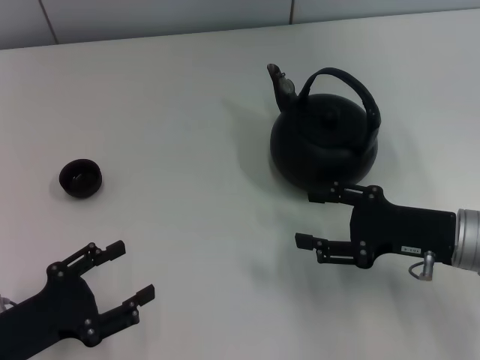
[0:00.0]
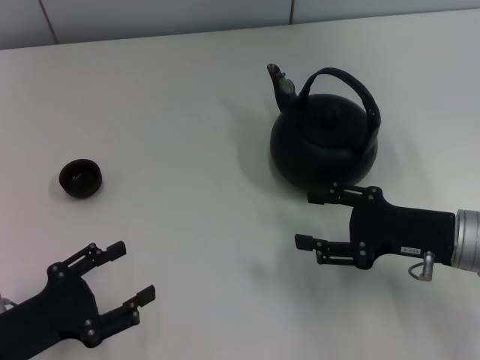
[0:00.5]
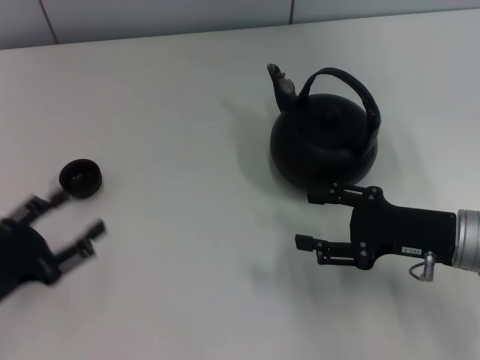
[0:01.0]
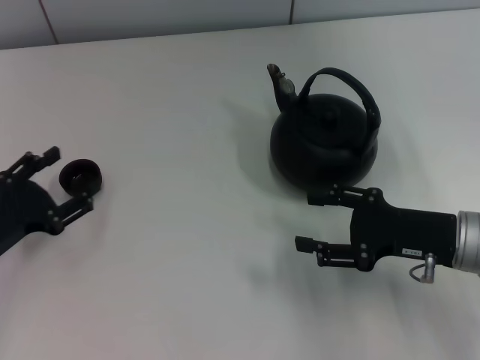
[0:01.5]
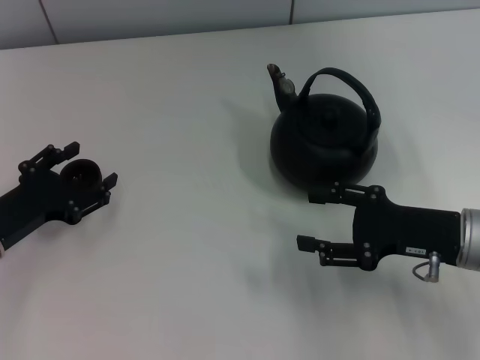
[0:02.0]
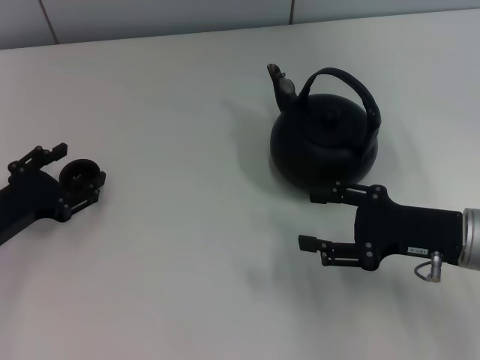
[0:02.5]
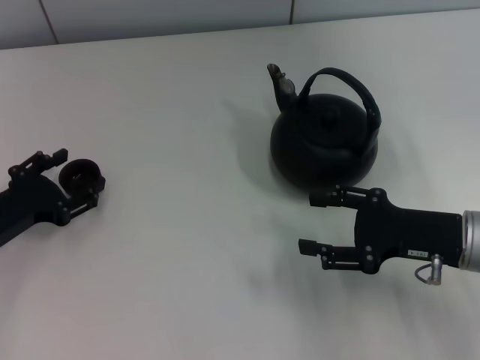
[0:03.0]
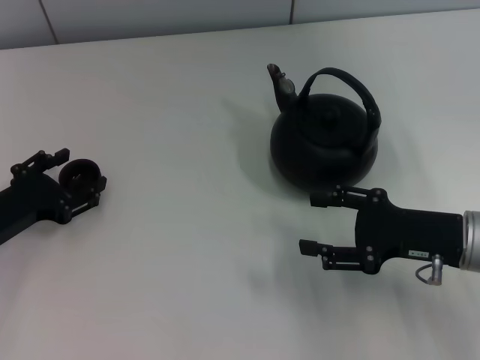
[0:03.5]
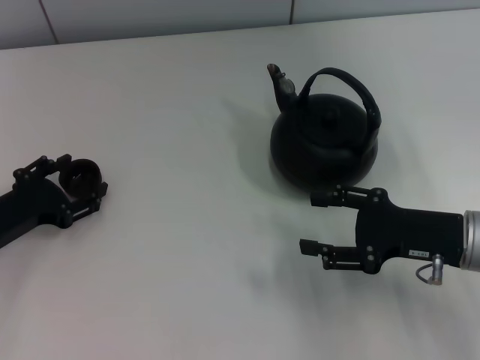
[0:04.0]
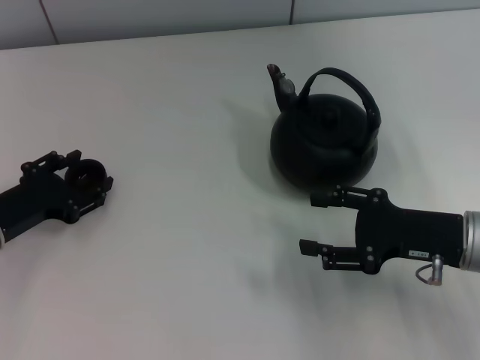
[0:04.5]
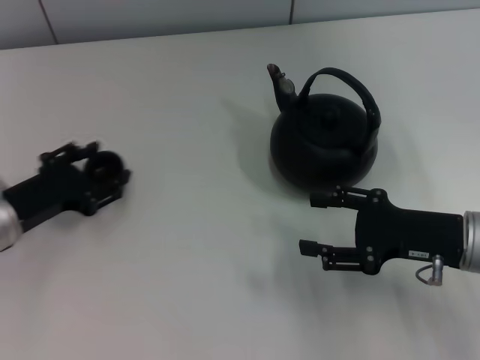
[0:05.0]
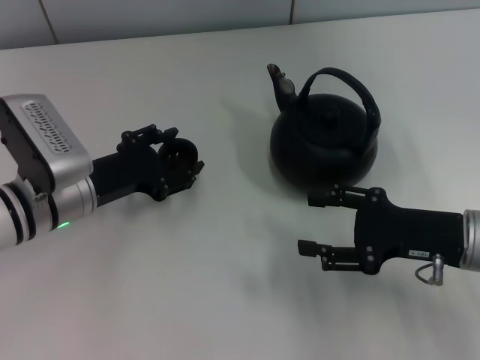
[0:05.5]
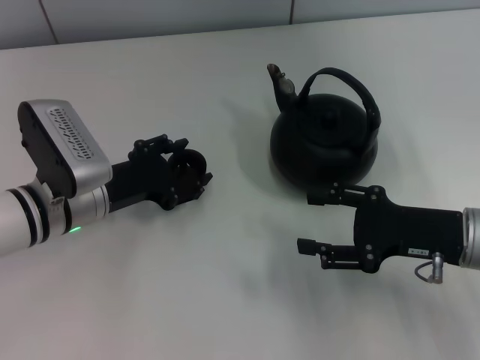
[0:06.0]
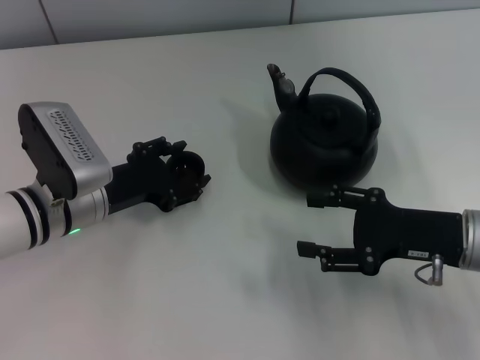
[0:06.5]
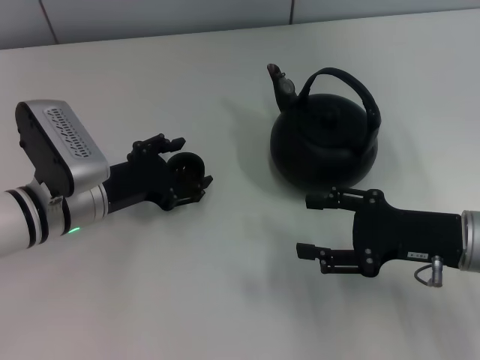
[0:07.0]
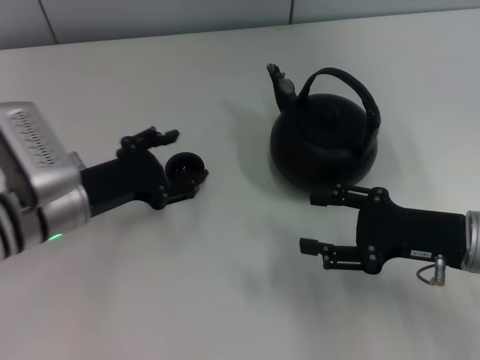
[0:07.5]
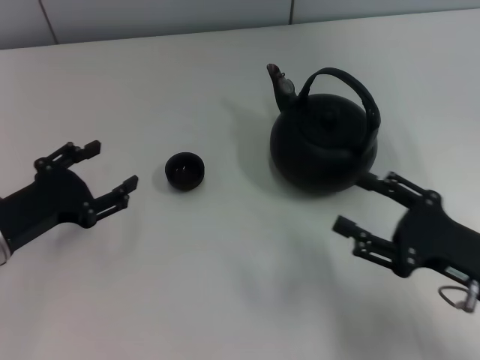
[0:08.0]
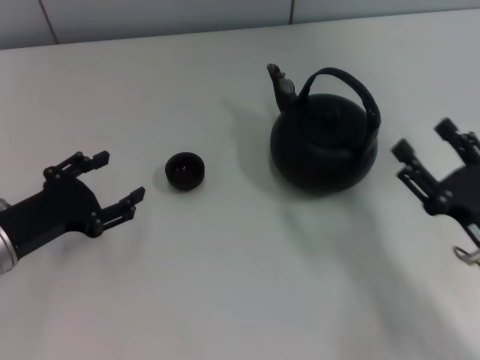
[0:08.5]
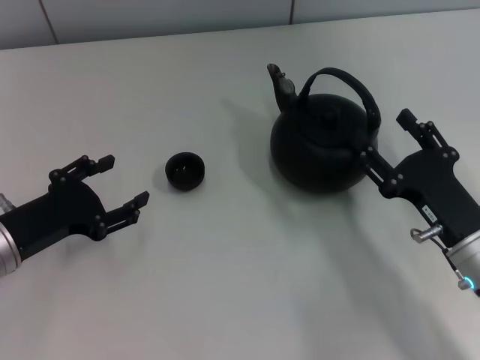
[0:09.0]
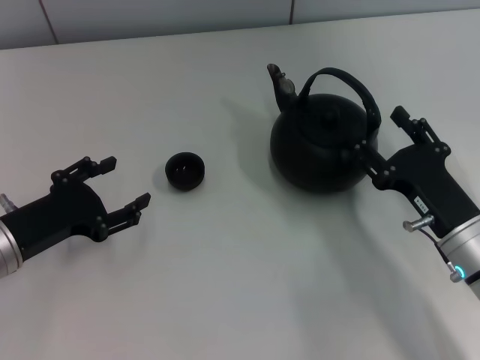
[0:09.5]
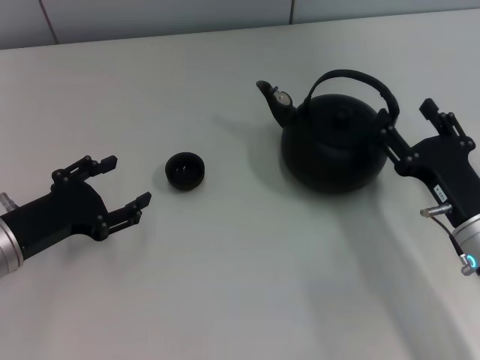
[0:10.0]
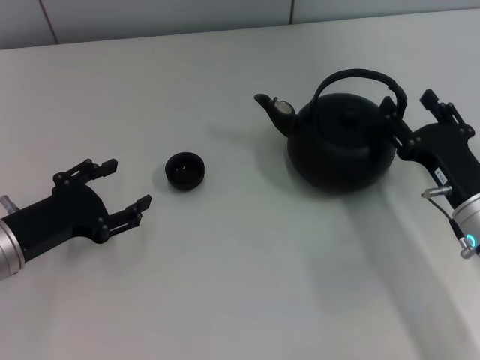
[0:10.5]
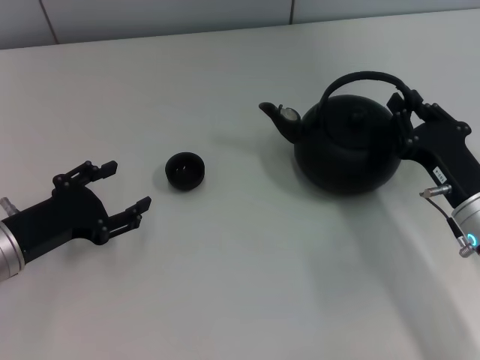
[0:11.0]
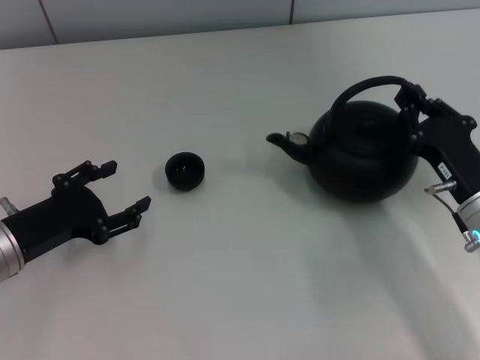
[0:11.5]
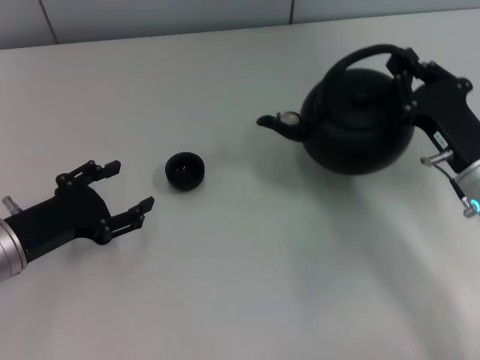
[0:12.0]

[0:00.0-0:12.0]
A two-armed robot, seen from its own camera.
Task of the whole recording: Grasp the handle of the teapot with one hand and pour tea into the teacup.
Step, 0:00.0 to 0:05.5: Pick up the teacup with the left gripper.
Step, 0:06.0 to 0:09.0: Place the teacup in the center of view with the left gripper.
0:00.0 to 0:02.0: The left gripper heads forward, covering some 10 cm.
0:02.0 to 0:04.0: There are only small adjustments of the grippers.
0:04.0 to 0:06.0: The left gripper is displaced to the right by about 10 cm.
0:06.0 to 0:08.0: The left gripper moves to the left and backward, about 10 cm, while the right gripper heads backward, covering some 5 cm.
0:08.0 to 0:10.0: The right gripper ends up some 5 cm from where it was.
0:10.0 to 0:12.0: The right gripper moves about 5 cm, and closes up.

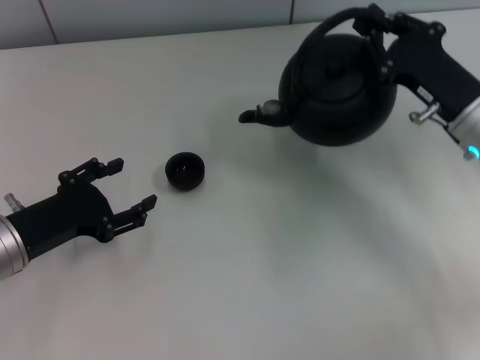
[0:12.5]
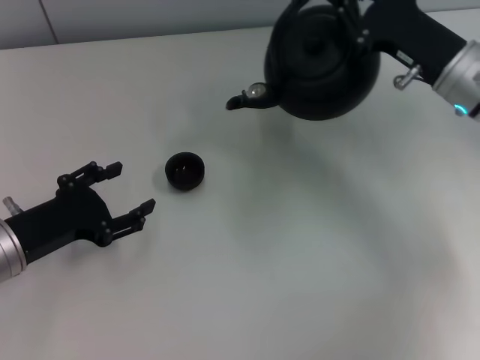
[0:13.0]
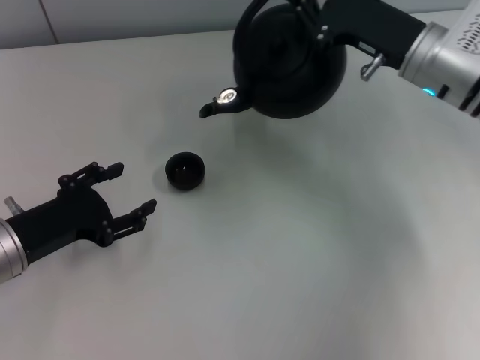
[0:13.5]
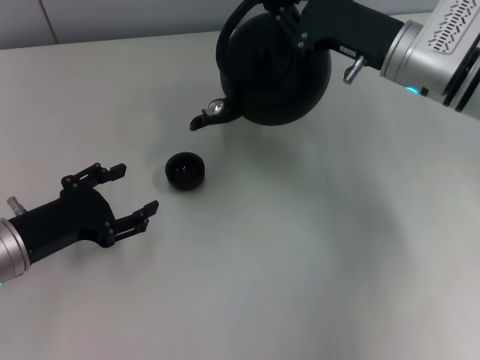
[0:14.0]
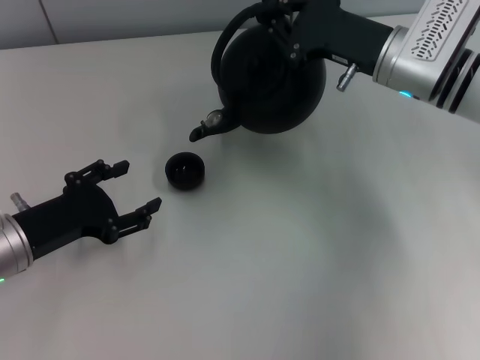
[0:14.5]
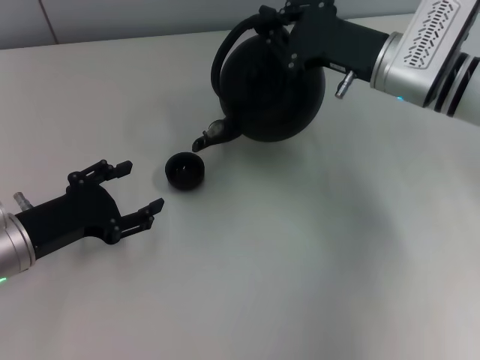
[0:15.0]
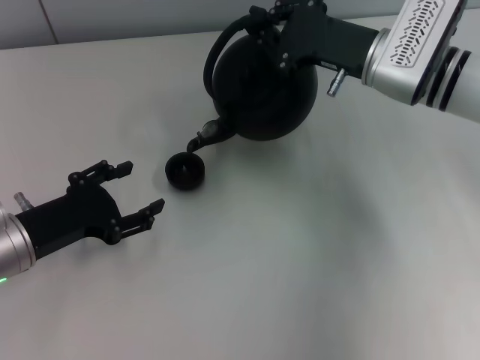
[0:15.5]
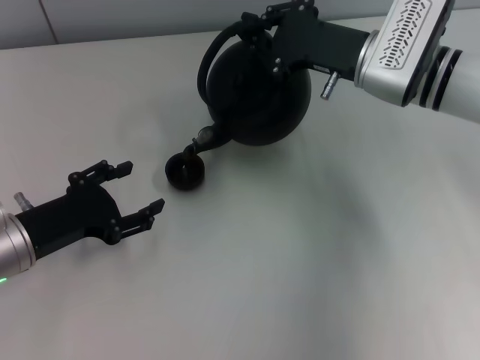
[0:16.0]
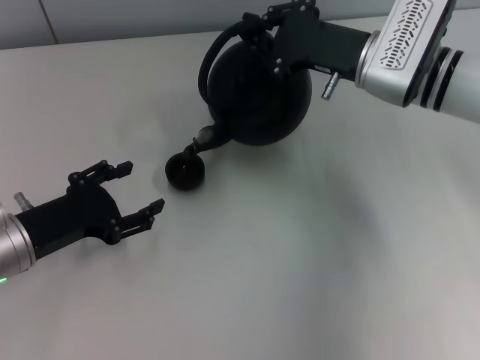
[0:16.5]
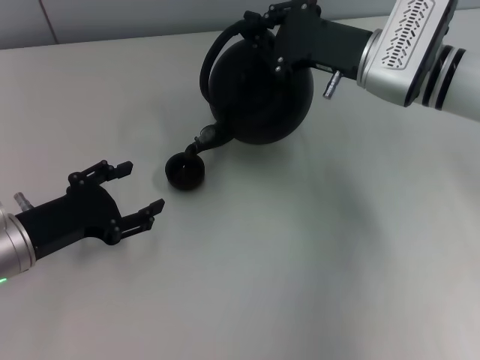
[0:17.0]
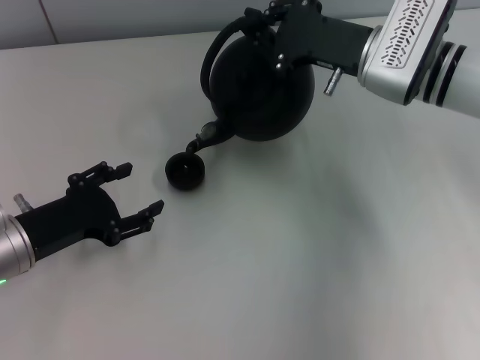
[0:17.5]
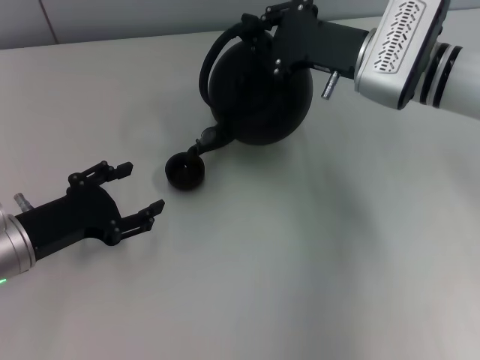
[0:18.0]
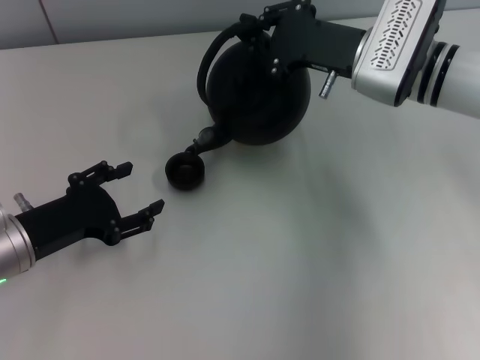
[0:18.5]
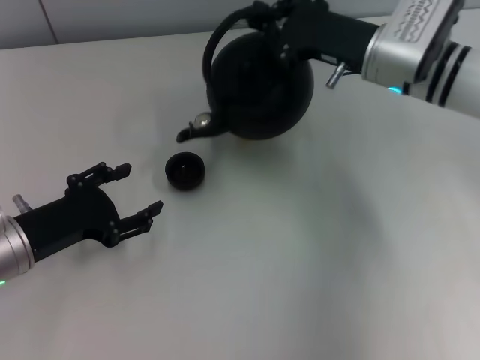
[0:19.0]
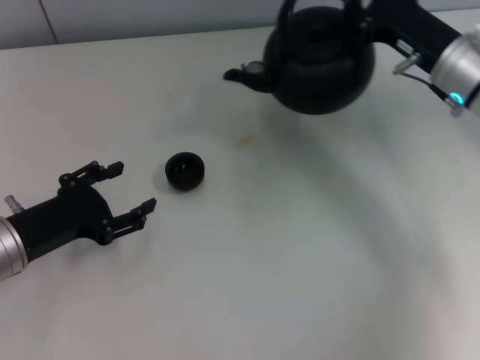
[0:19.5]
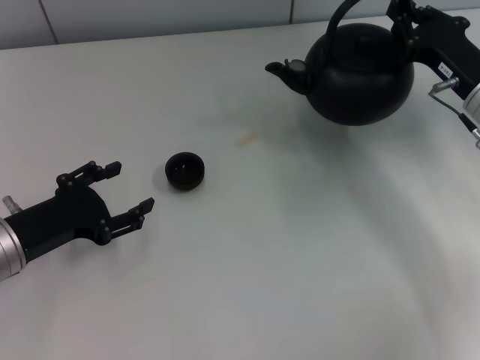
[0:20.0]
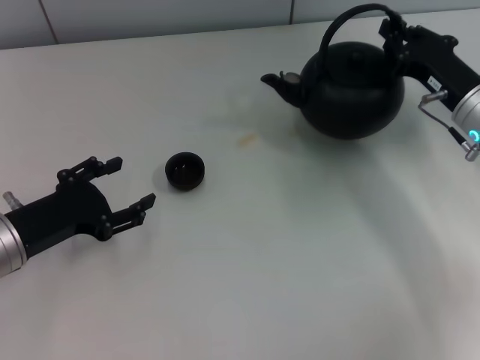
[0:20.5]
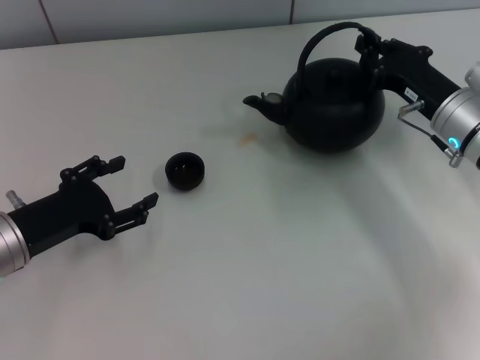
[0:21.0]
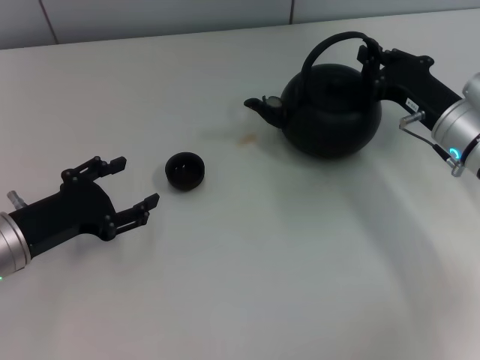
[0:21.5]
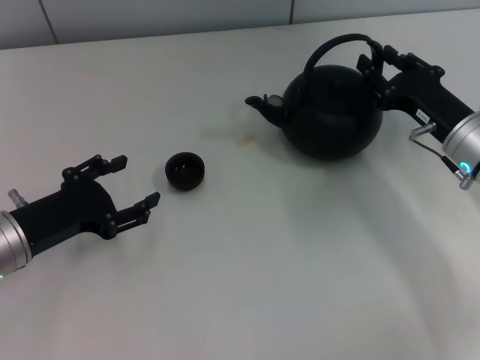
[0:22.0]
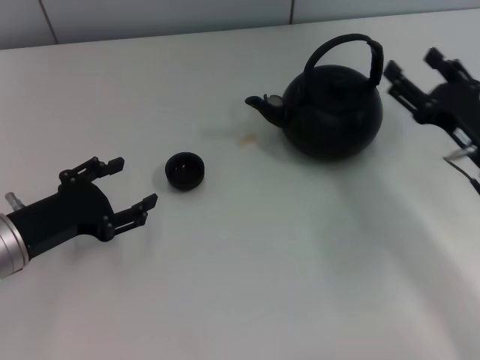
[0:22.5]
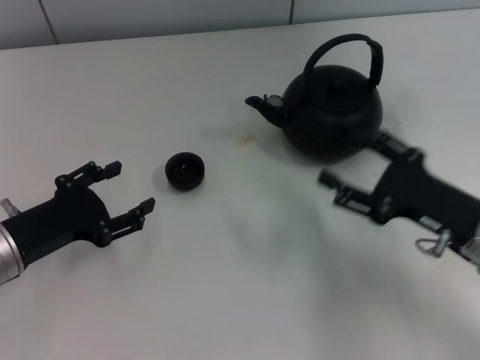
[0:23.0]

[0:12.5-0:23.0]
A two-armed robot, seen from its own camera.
Task of the whole recording: Grasp the handle of the teapot with one hand and pour tea into the teacup.
Step, 0:19.5 to 0:22.0: Put down the teapot with the right gripper.
0:12.5 to 0:14.5: The right gripper goes approximately 10 cm forward and to the left.
0:14.5 to 0:19.0: The grippers move only a little.
0:19.0 to 0:21.0: The right gripper is displaced to the right and downward by roughly 10 cm.
0:21.0 to 0:23.0: The right gripper travels backward by roughly 10 cm, and opens its fingers.

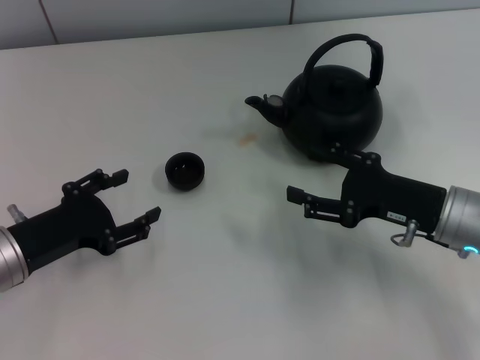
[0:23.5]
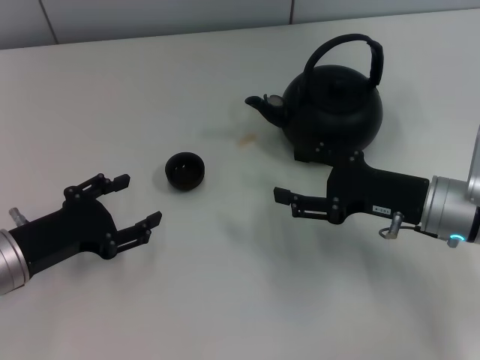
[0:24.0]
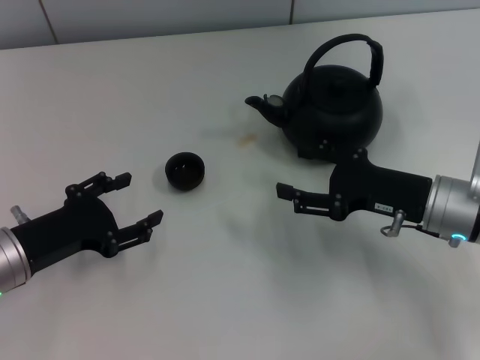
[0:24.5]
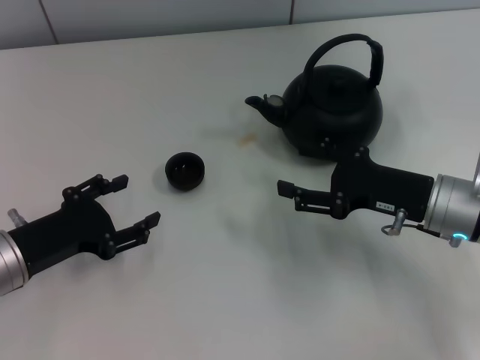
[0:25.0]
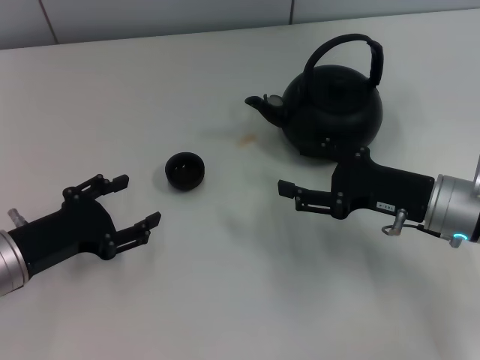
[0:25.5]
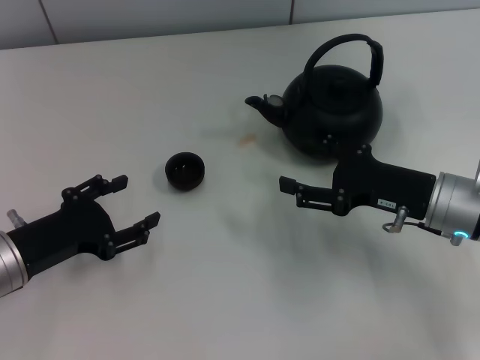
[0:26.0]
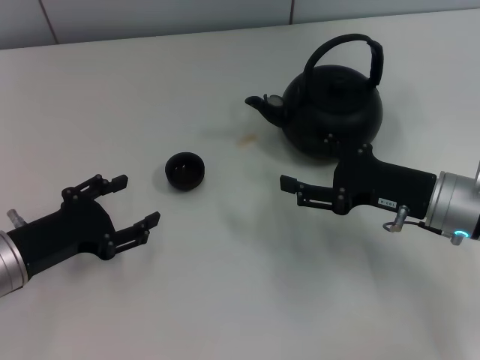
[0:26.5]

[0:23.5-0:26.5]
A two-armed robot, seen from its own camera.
Task of the whole recording: Grasp the handle of the teapot with one hand and pour tea into the teacup.
0:23.5 to 0:25.0: The grippers move only a little.
0:25.0 to 0:26.5: Both grippers stay about where they are.
